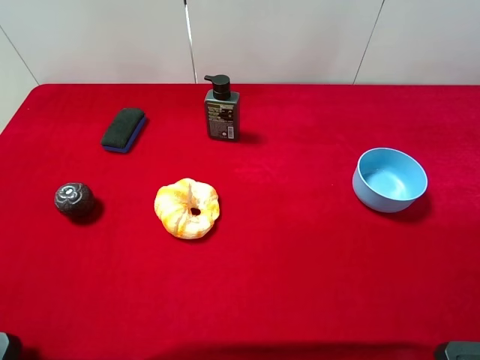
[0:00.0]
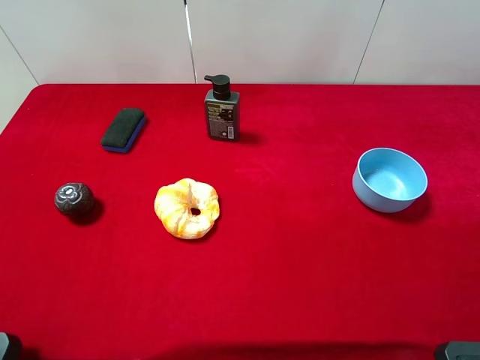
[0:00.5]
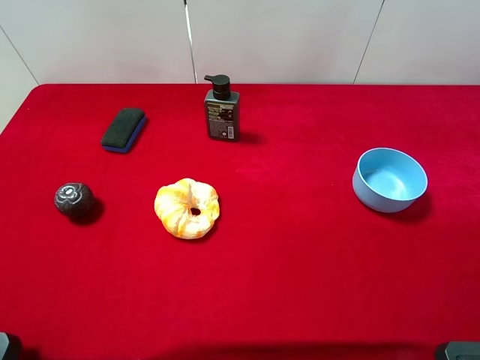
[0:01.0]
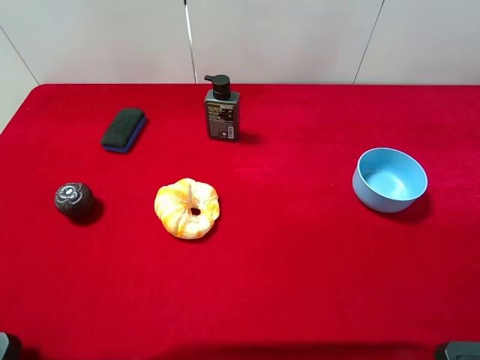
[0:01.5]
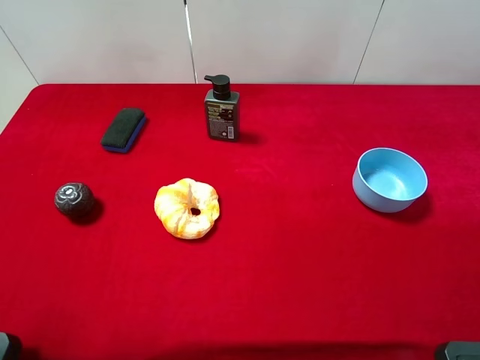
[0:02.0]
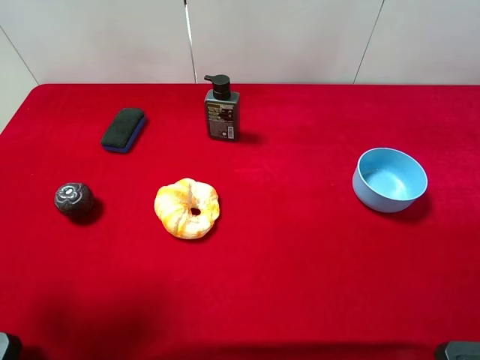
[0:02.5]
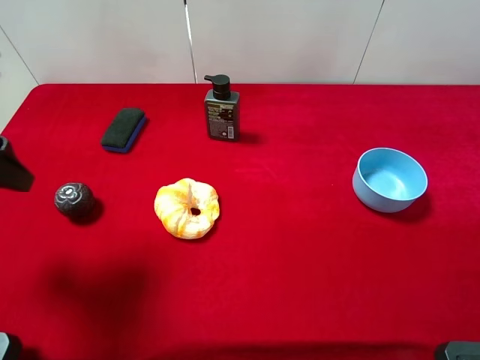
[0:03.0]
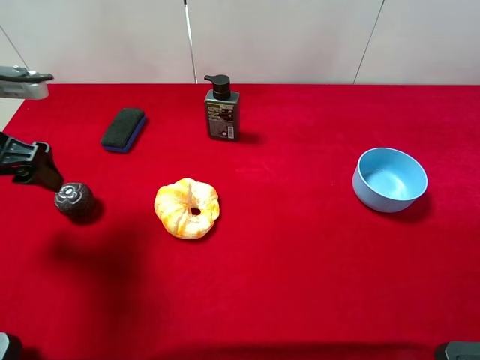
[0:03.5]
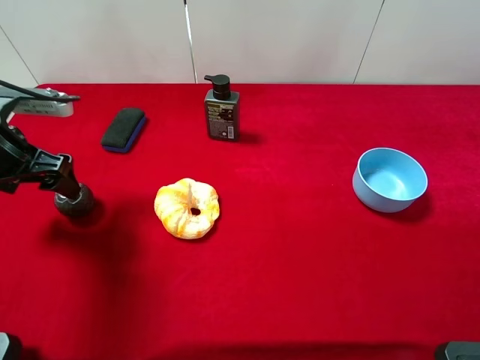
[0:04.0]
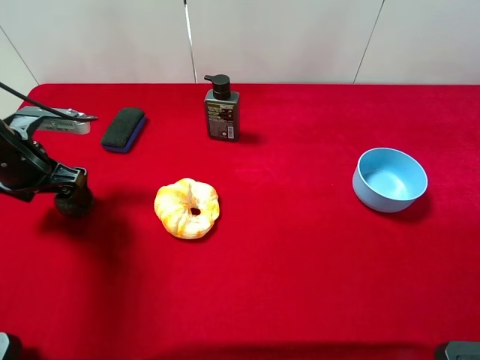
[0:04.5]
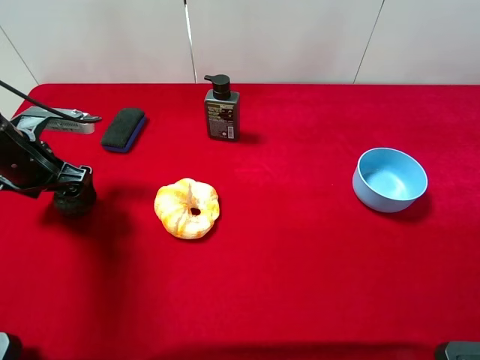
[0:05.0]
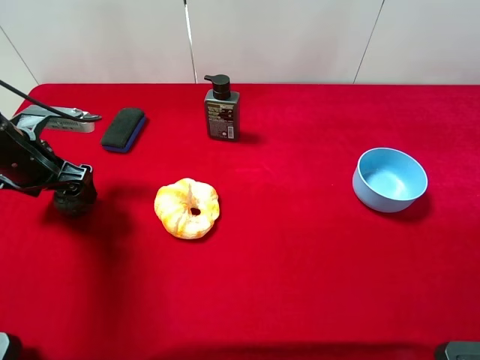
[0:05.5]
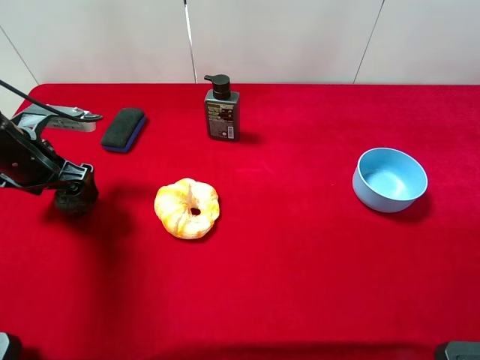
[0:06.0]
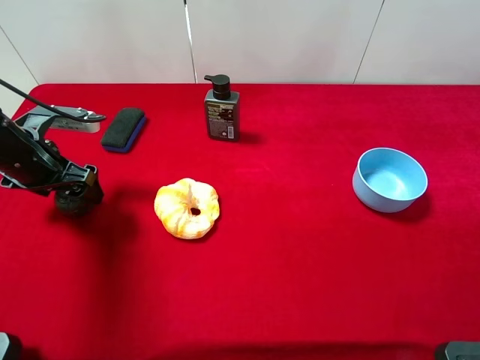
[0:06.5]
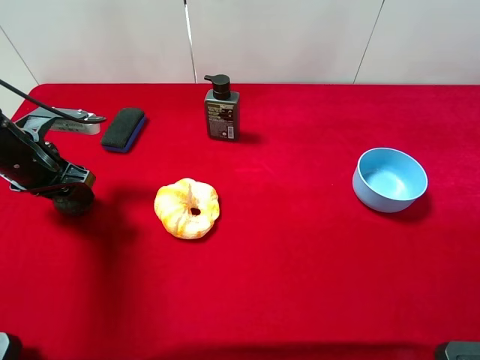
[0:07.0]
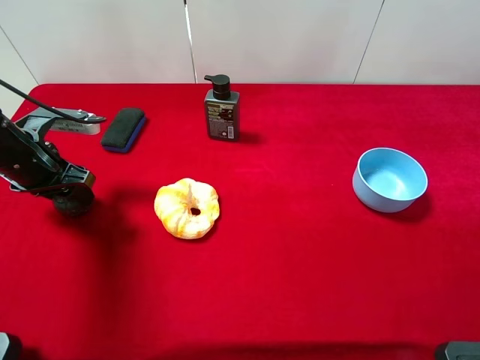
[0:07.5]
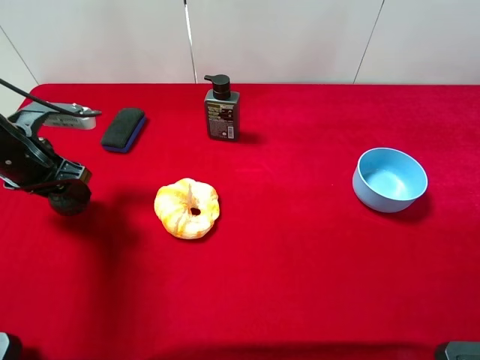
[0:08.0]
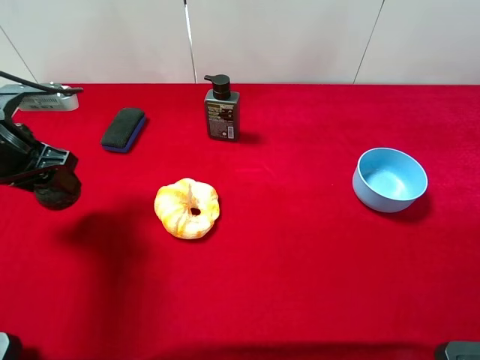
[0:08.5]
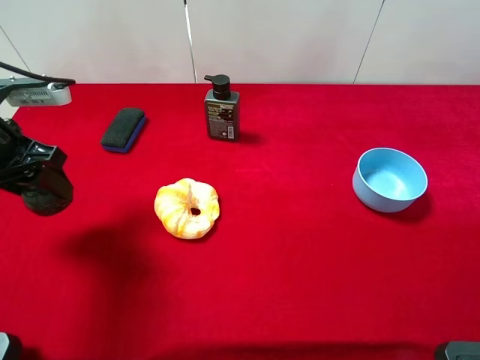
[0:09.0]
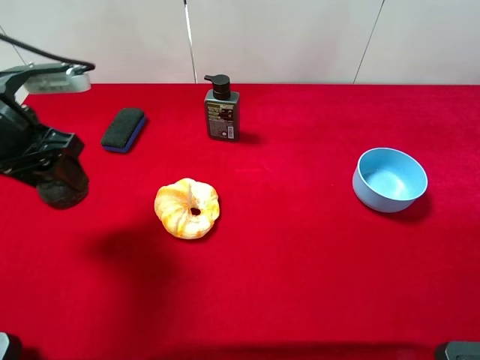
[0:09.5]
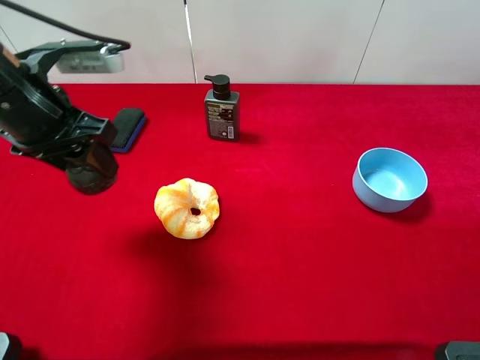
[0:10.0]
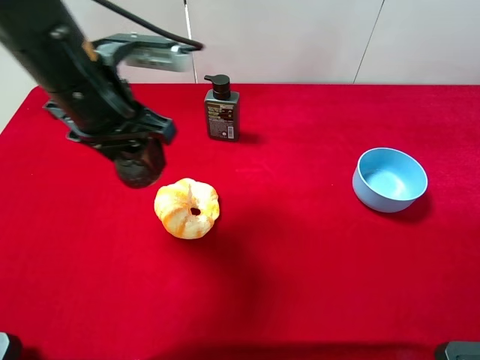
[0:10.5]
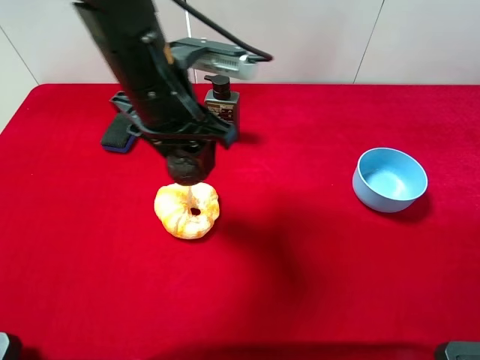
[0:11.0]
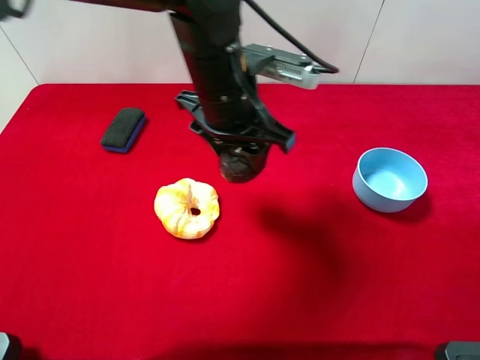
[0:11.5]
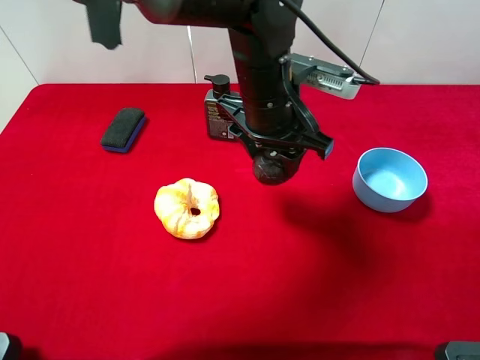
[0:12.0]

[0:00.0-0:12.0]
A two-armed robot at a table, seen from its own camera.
Task of the whole recording: the gripper move the object.
Step, 0:00.0 to 0:07.0: Grasp the mangosteen with the left gripper.
0:02.0 to 0:04.0: The left gripper travels forward and downward by roughly 25 cm.
0:04.0 to 0:06.0: There are only small adjustments of the grippers.
0:06.0 to 0:08.0: The left gripper closes.
0:08.0 to 0:10.0: The left gripper goes some 15 cm upward and to the right.
0:10.0 to 0:12.0: The left gripper moves to the right, about 25 cm.

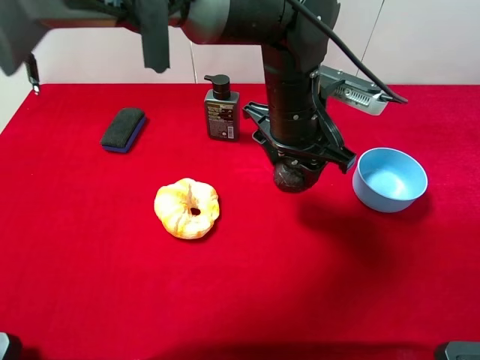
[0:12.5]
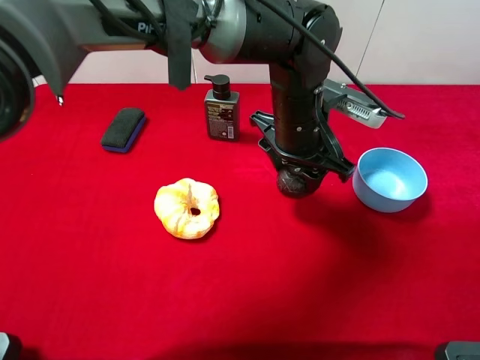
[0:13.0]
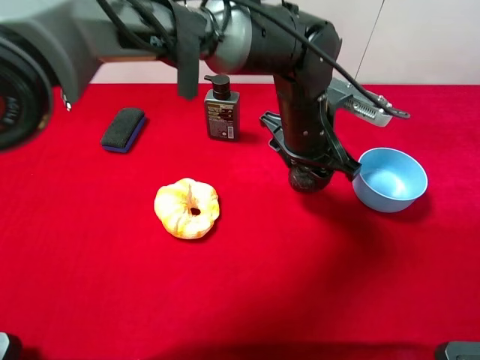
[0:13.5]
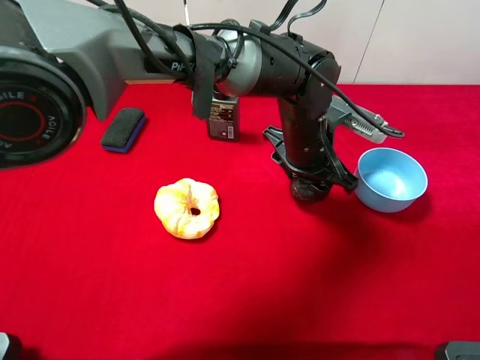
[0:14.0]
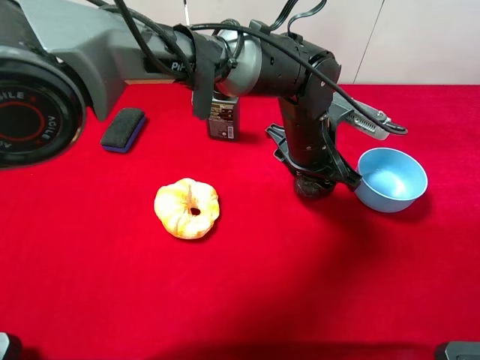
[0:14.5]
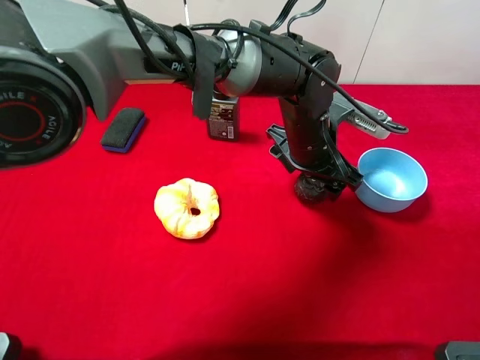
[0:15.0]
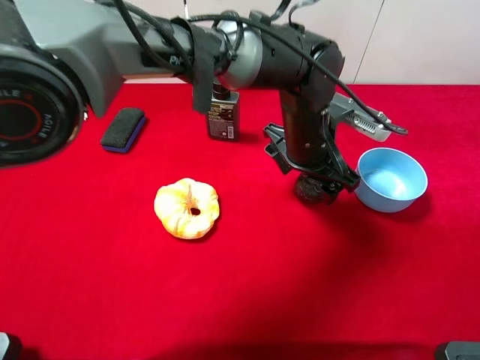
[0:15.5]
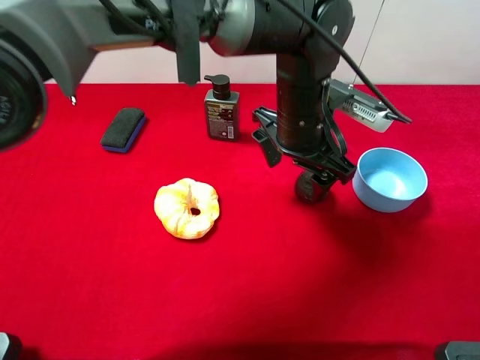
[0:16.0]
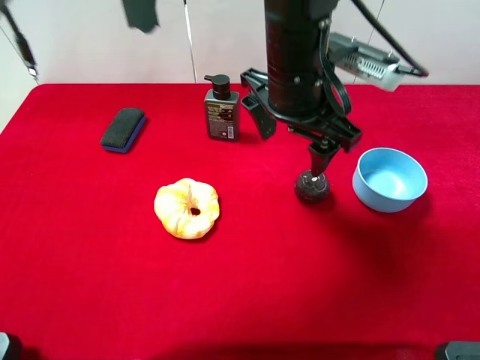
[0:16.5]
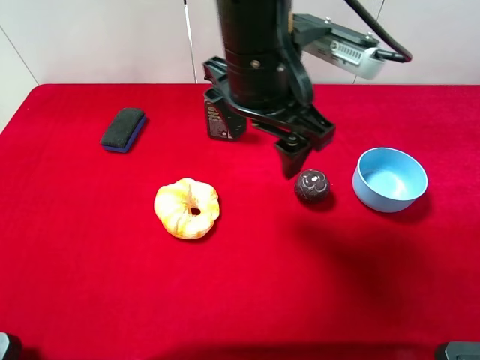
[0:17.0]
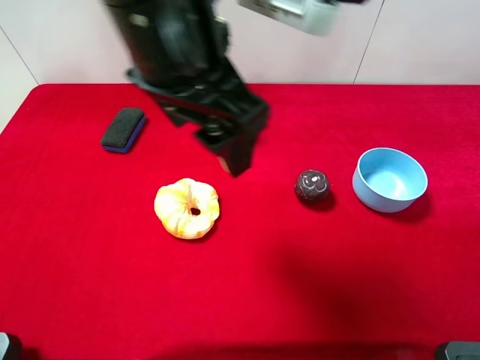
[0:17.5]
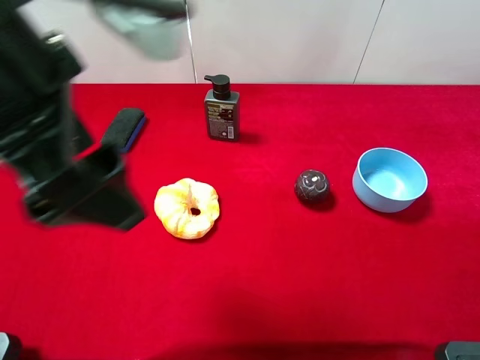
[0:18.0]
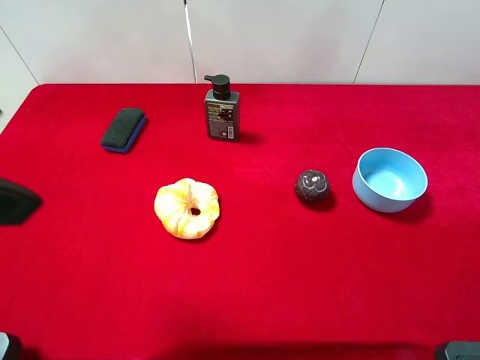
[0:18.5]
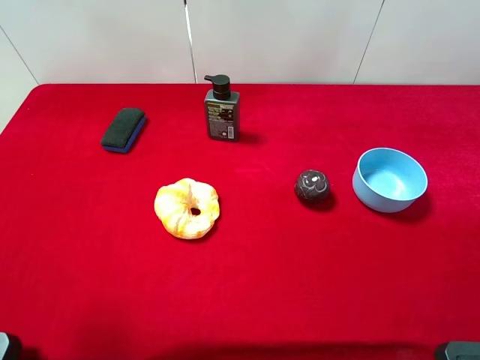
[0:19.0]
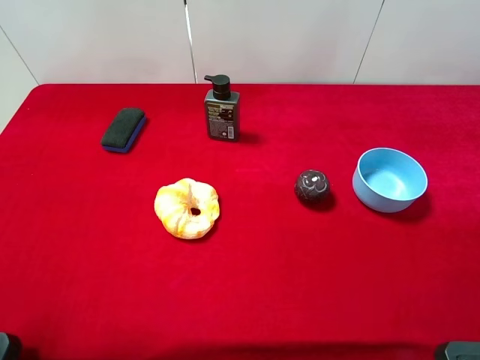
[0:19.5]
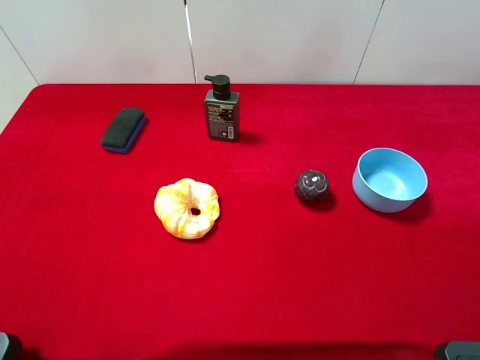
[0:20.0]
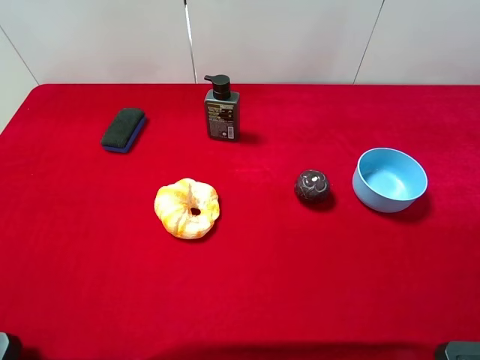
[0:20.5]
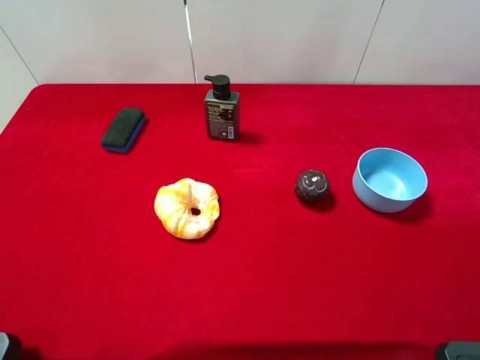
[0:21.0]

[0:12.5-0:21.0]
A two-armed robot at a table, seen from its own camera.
Task of the whole recording: the gripper move the object.
Step, 0:12.5 to 0:16.0: Place the mangosteen on the table with the left gripper.
0:12.5 to 0:14.5: The left gripper moves downward, about 5 cm.
0:14.5 to 0:16.5: The left gripper moves upward, about 10 cm, and opens its fingers.
0:16.5 to 0:19.0: The left gripper heads to the left and backward, covering approximately 40 cm, and opens its fingers.

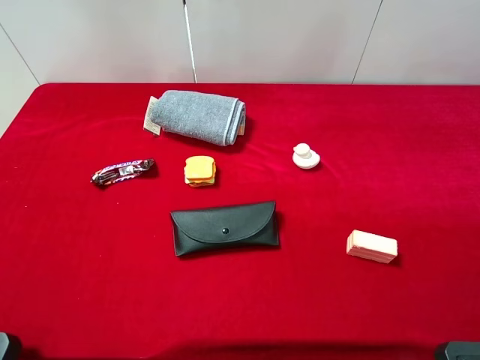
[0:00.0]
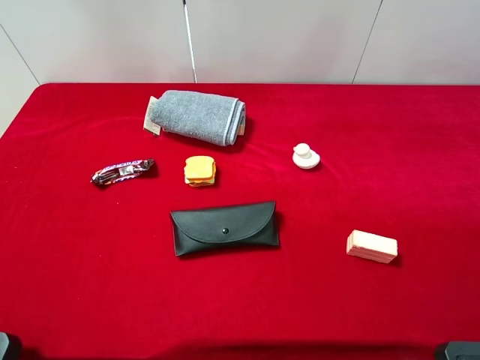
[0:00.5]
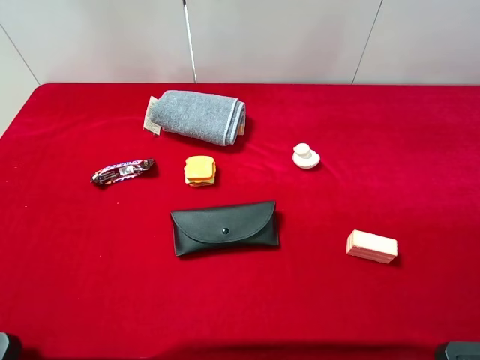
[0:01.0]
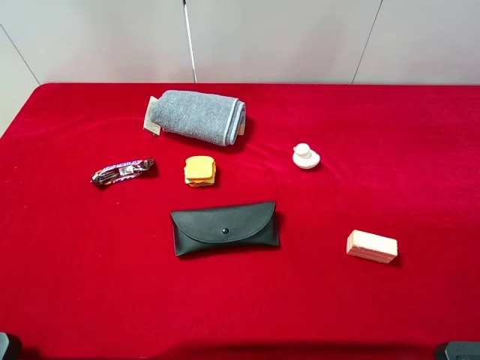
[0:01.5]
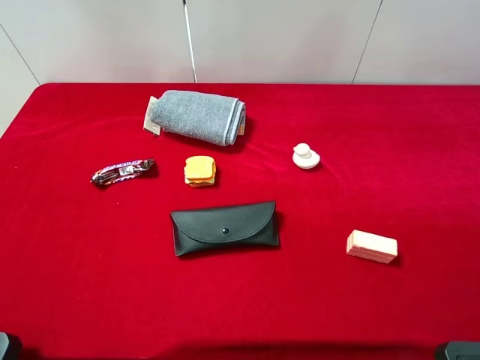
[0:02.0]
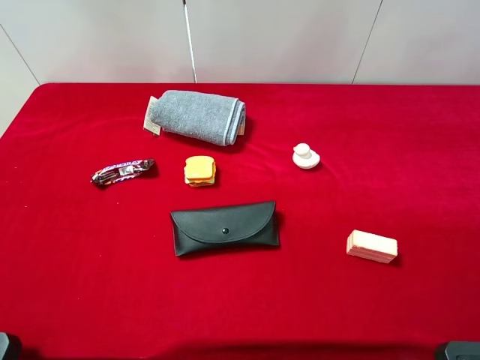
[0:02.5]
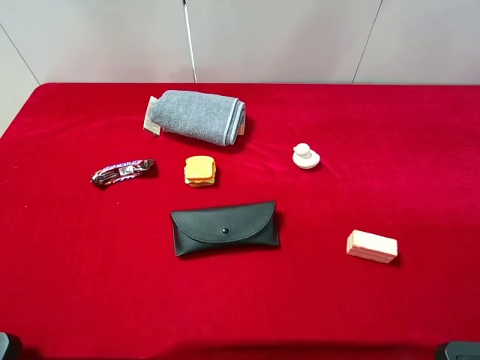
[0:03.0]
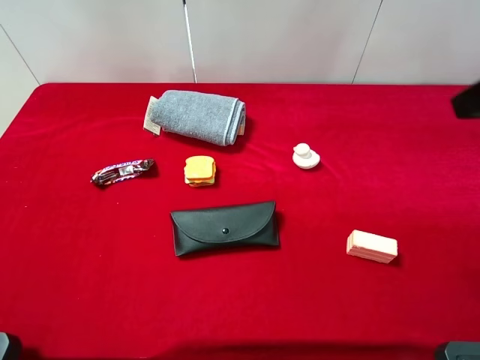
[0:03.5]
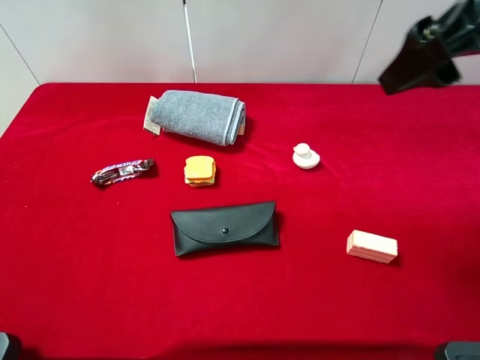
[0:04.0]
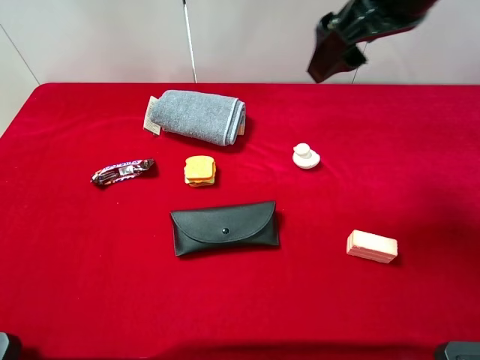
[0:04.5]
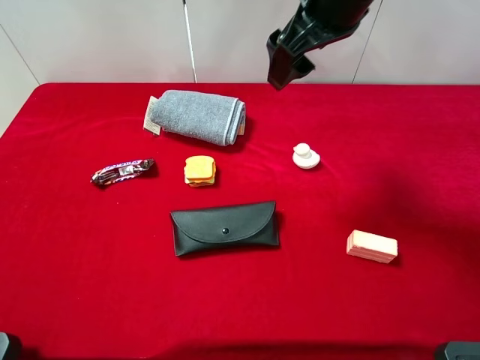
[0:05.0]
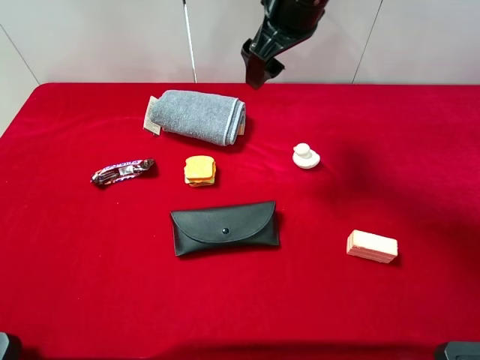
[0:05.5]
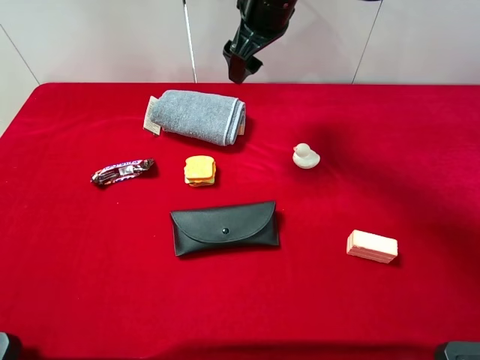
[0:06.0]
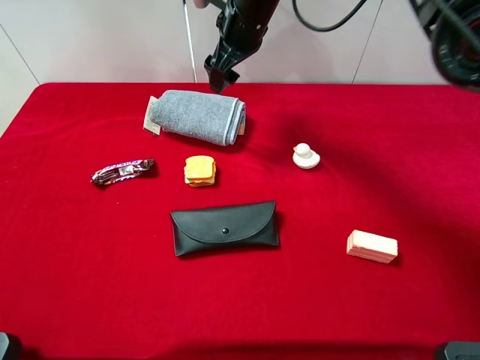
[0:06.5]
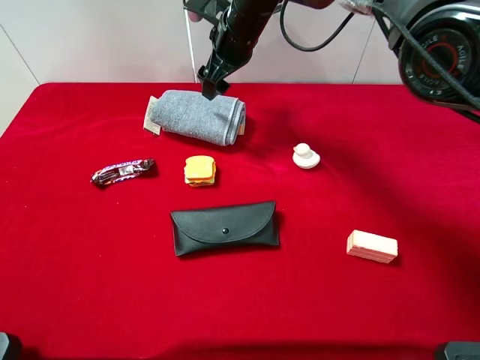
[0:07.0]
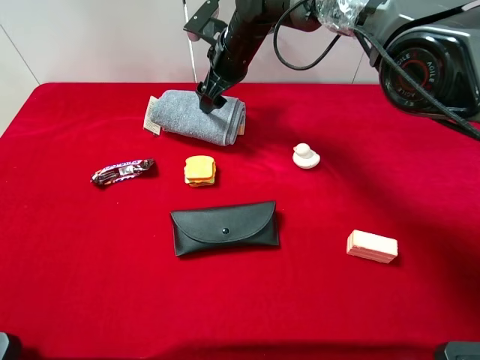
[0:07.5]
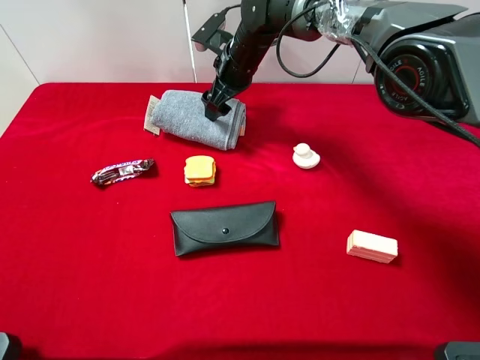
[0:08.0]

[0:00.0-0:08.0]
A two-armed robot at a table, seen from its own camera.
Task of the whole recording: the gripper move the object.
0:00.0 to 0:02.0: The two grippers keep their place.
0:02.0 to 0:04.0: The right gripper shifts roughly 25 cm forward and to the left.
0:04.0 to 0:06.0: The right gripper goes some 25 cm forward, to the left and downward.
0:06.0 to 0:08.0: The right gripper moves downward and forward, approximately 15 cm.
